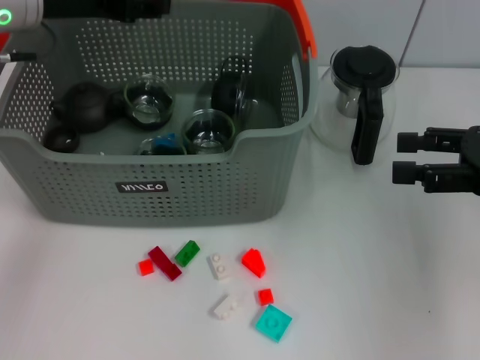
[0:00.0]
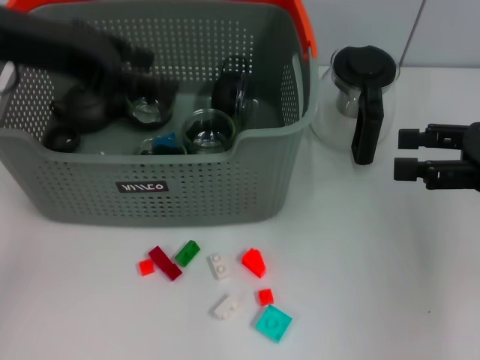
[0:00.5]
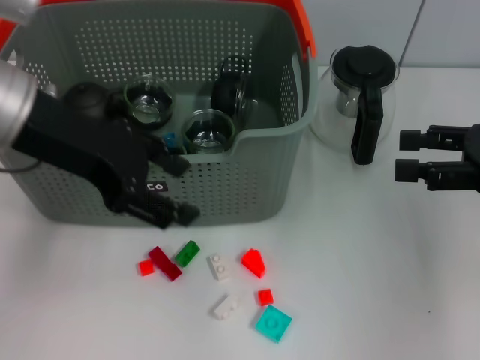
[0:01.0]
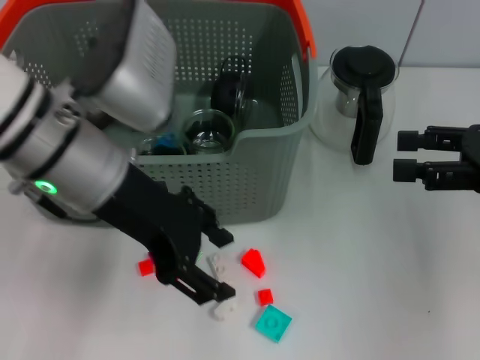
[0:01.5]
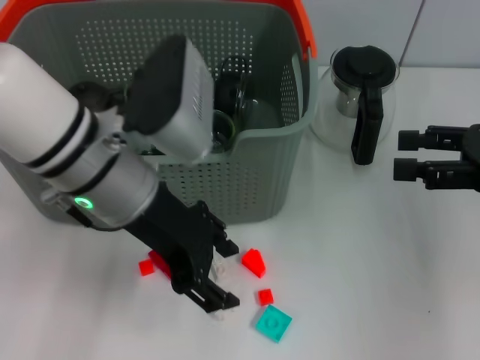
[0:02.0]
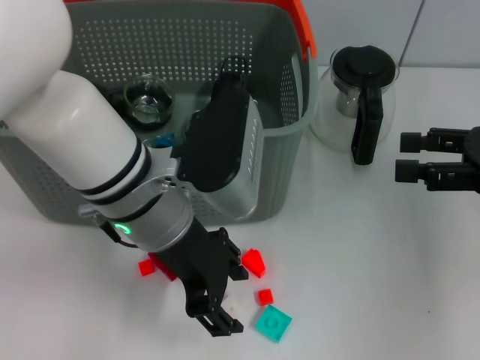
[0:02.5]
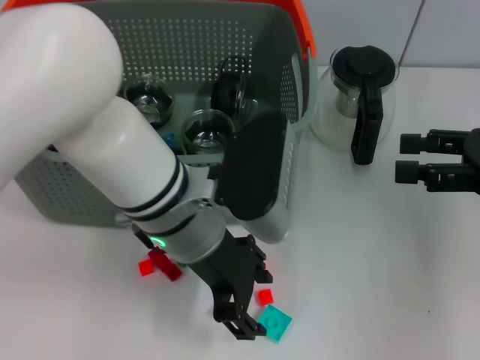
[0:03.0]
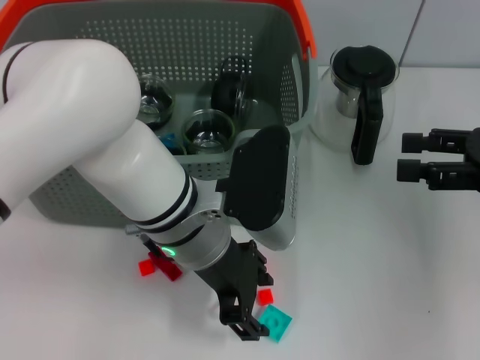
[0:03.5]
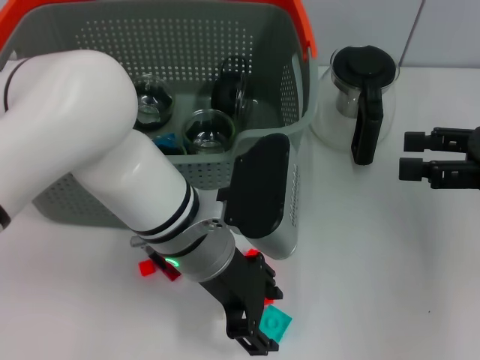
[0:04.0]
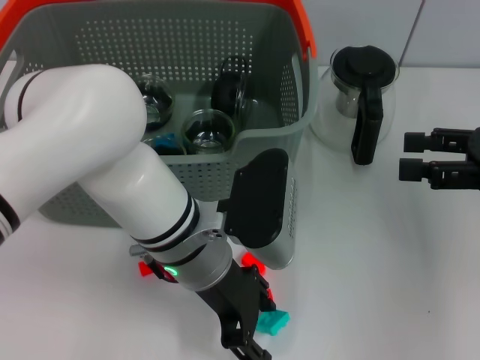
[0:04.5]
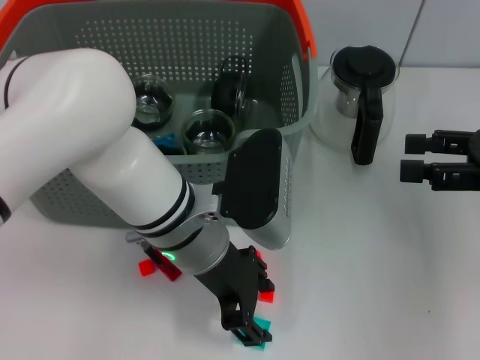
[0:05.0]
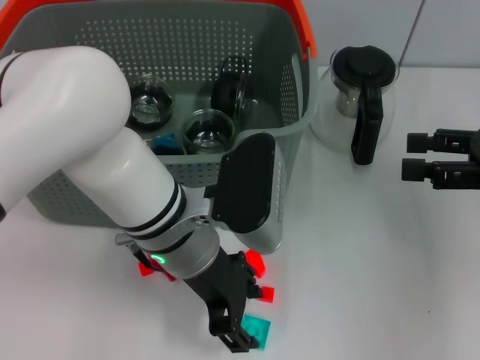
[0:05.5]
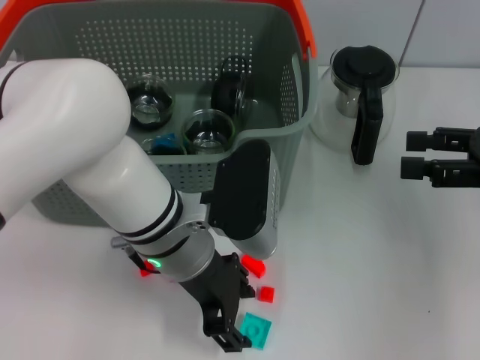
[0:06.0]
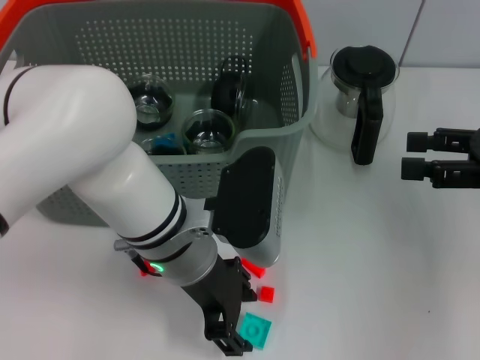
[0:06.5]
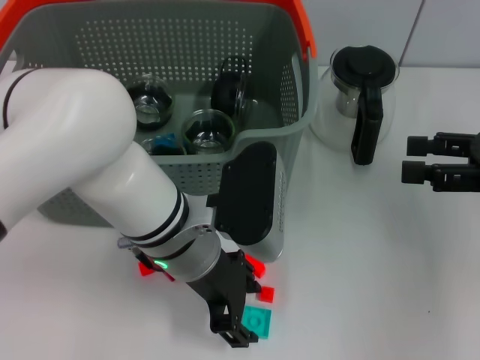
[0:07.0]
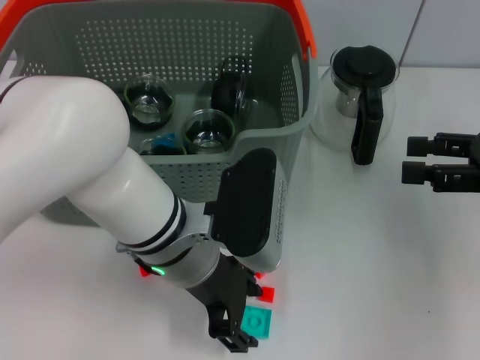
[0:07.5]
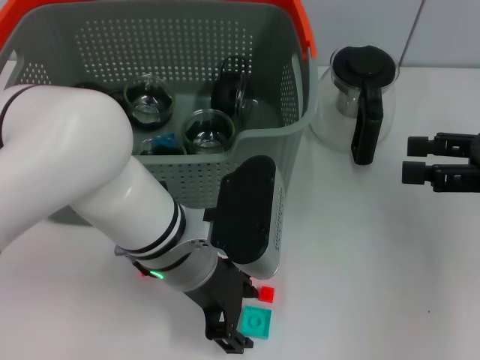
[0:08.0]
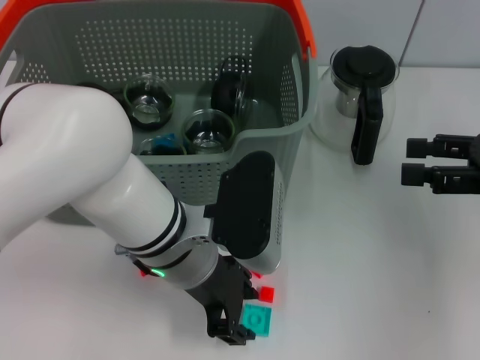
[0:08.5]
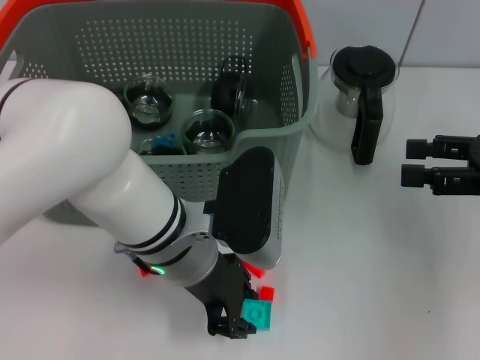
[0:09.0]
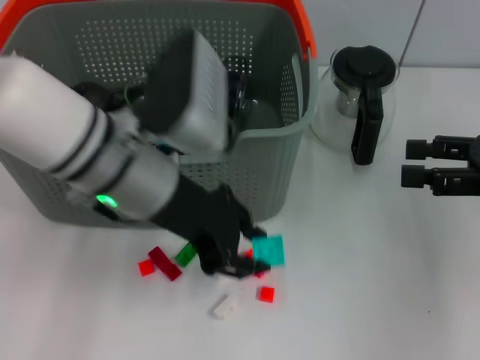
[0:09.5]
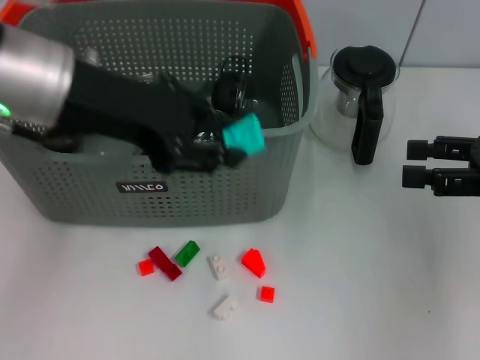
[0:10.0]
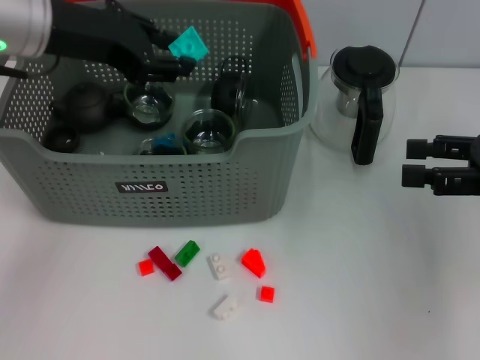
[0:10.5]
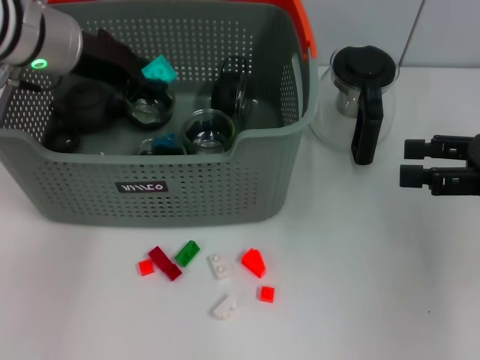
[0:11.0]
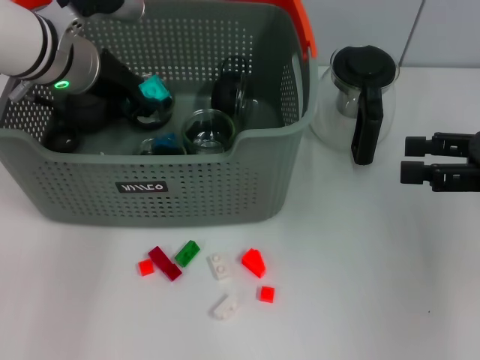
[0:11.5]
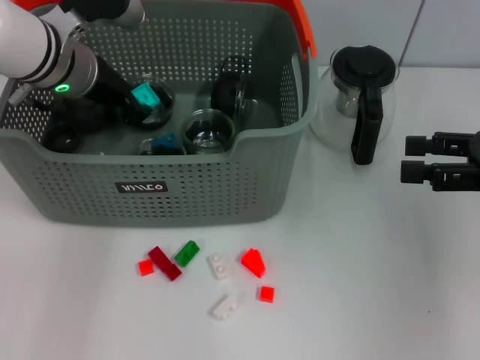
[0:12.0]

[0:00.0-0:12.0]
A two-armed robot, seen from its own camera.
Task of the whole recording: pick up the teacup on the table and place it into the storage bin, pick up the block on the table and place it into the storage bin.
Step, 0:00.0 to 0:08.5: Grasp the light blue block with left gripper.
0:00.0 to 0:02.0: The left gripper is displaced to the right and backward by approximately 15 cm.
0:02.0 to 0:04.0: The left gripper travels downward and to the right by approximately 10 cm.
0:04.0 to 0:06.0: The grippers make only small movements.
0:06.0 to 0:08.0: Both grippers stay put.
0:08.0 to 0:10.0: The left gripper goes approximately 20 cm upward and to the left, and closes up.
0:10.0 to 0:12.0: The left gripper heads forward and downward, covering roughly 15 cm.

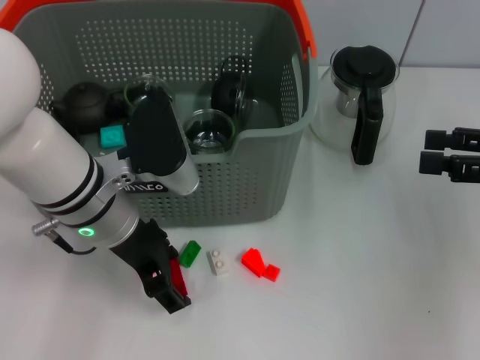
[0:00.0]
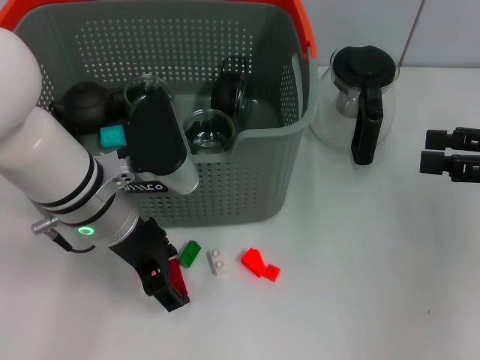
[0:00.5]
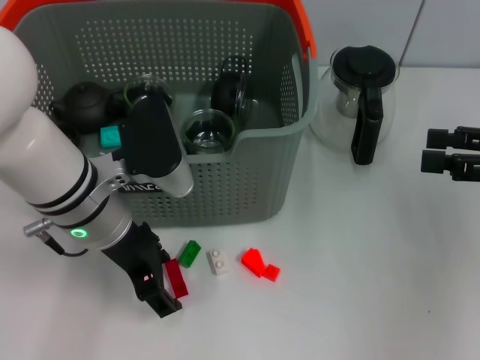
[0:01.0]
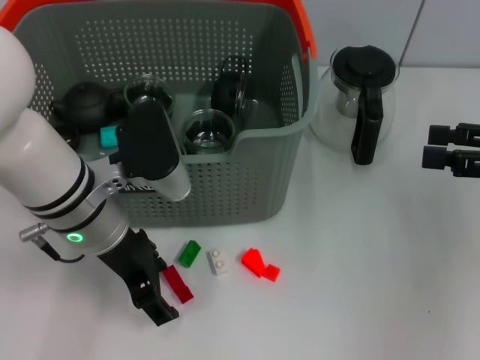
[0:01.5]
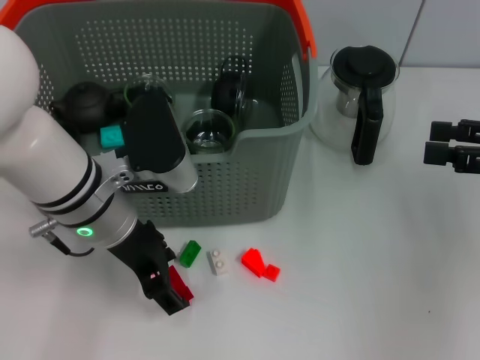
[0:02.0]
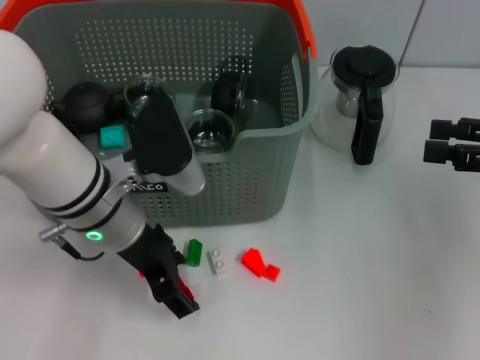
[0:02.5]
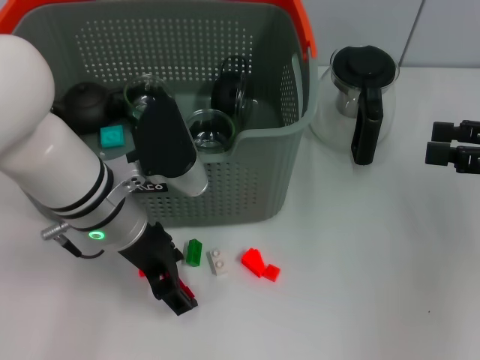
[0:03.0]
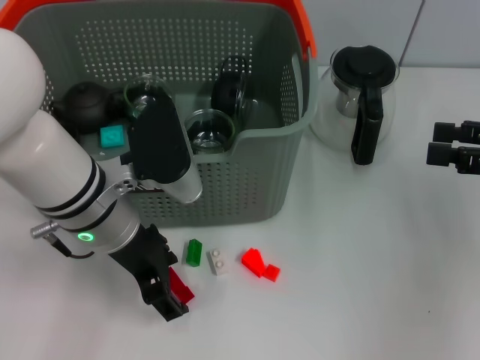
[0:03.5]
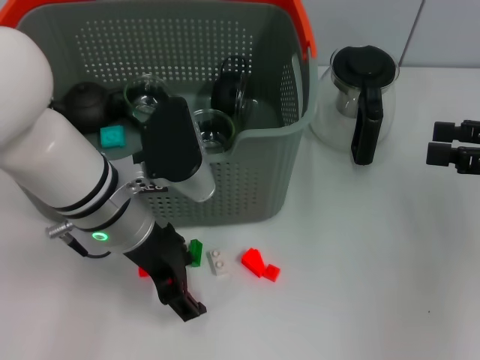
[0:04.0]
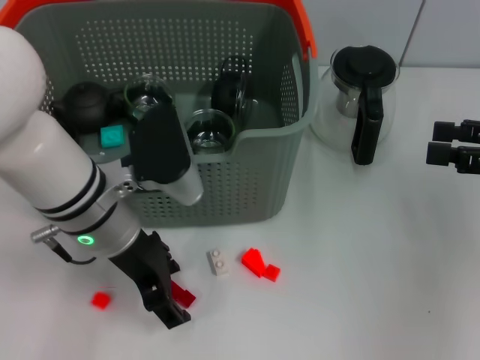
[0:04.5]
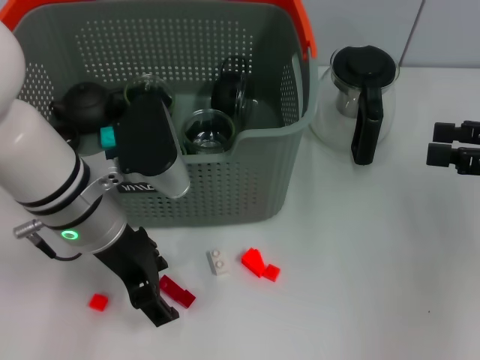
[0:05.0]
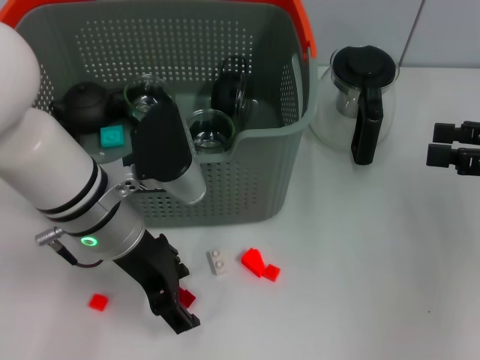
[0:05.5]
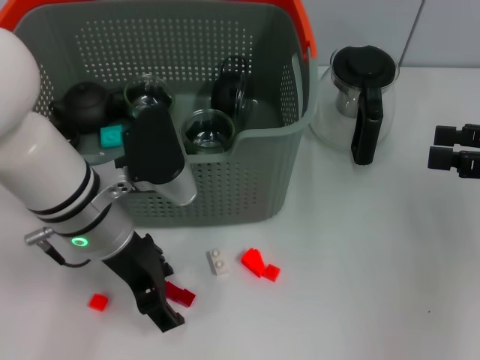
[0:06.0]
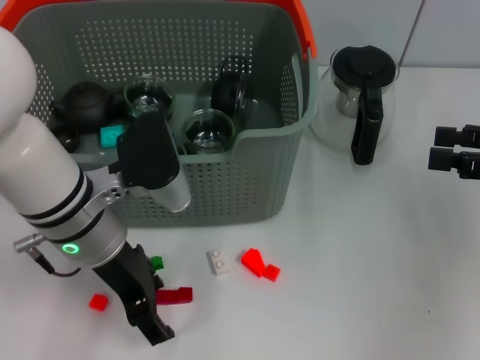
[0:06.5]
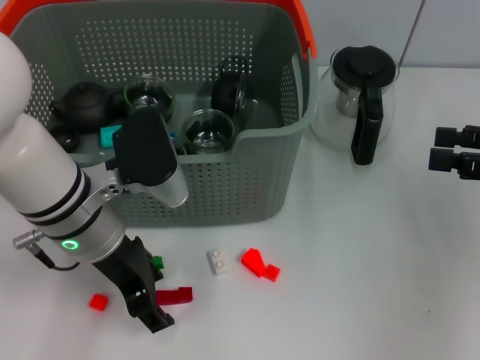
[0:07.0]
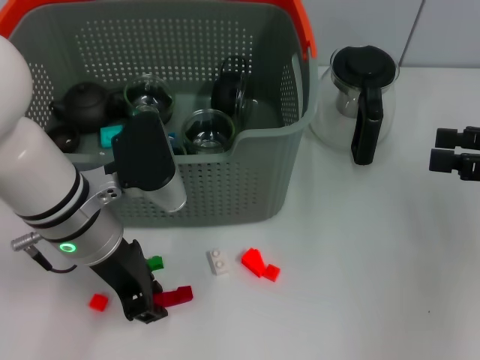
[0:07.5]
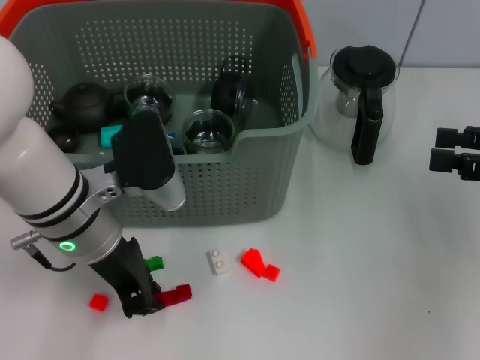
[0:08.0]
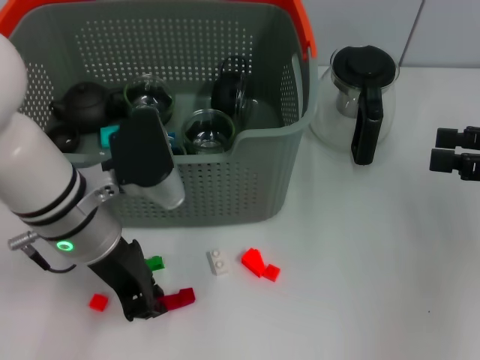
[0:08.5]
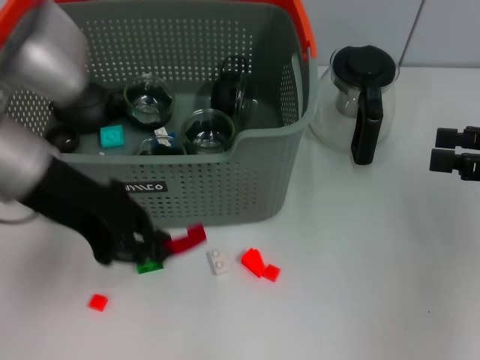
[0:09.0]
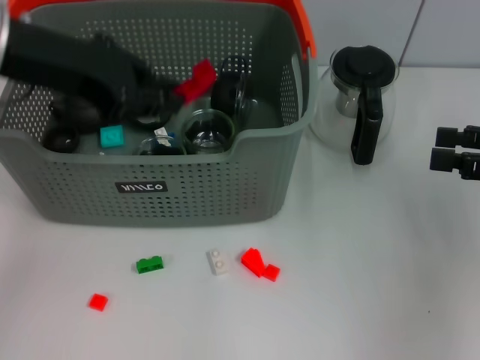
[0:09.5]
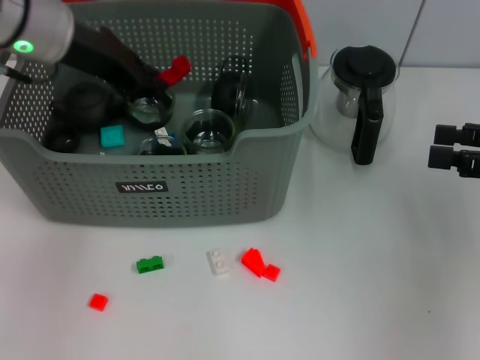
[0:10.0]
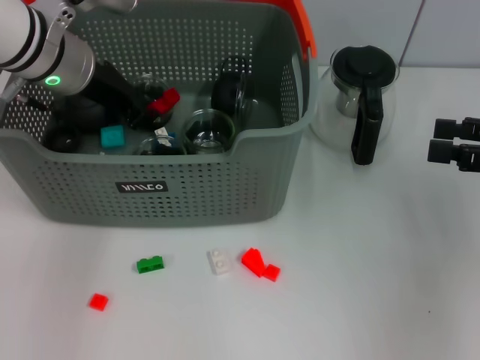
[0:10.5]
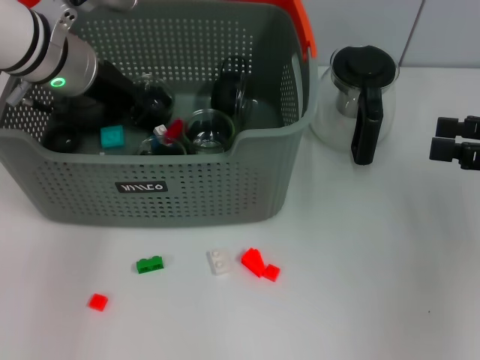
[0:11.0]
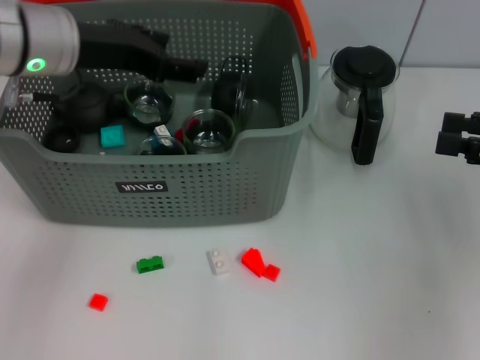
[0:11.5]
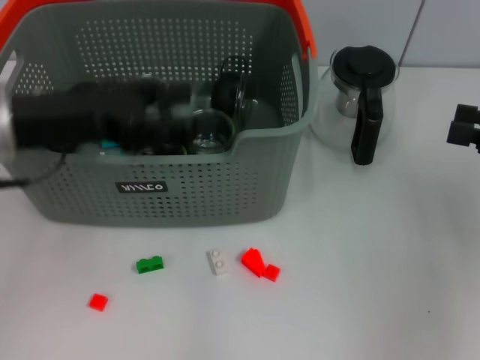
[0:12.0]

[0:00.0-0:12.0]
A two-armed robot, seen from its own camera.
Task of the whole recording: pick up the teacup on the table and place it into the storage bin, pick up the block on the table and place it into the storage bin.
Step, 0:00.0 to 0:08.0: Grasp the red block with left gripper.
Step, 0:08.5 to 0:11.5: Place the red block in the storage box with left gripper.
0:00.0 to 0:02.0: Both grippers stay about where they are.
0:02.0 to 0:06.0: The grippers stay close to where they were, moving slightly.
0:06.0 to 0:08.0: The left gripper closes.
0:08.0 to 0:10.0: The left gripper heads upward and forward, covering approximately 15 cm.
0:10.0 to 0:12.0: The left gripper goes roughly 10 cm backward, and opens its fingers.

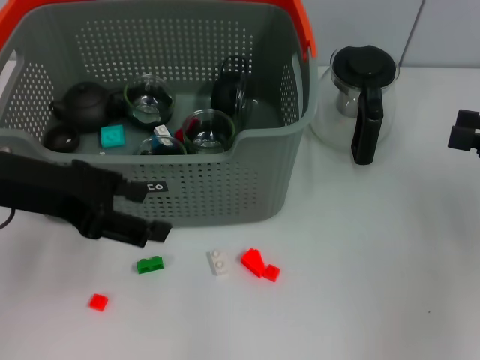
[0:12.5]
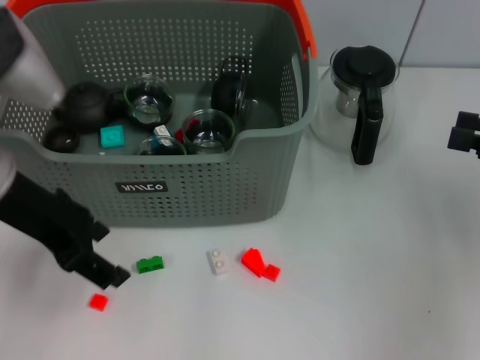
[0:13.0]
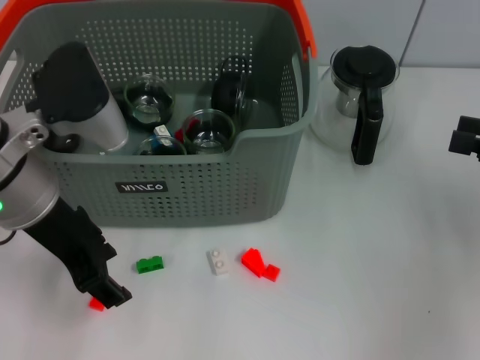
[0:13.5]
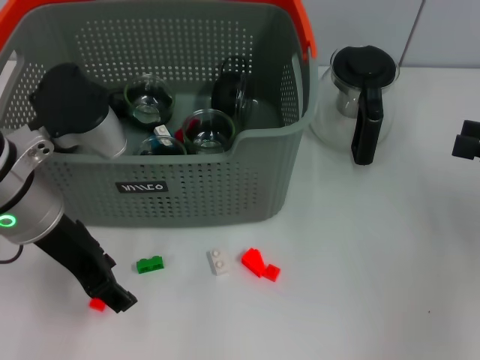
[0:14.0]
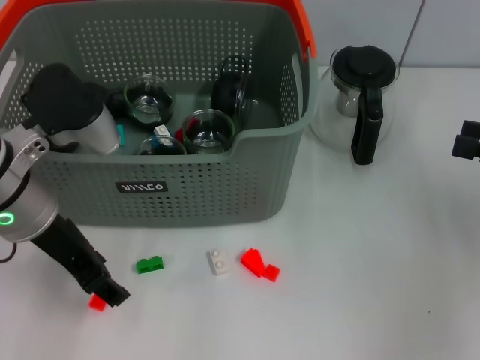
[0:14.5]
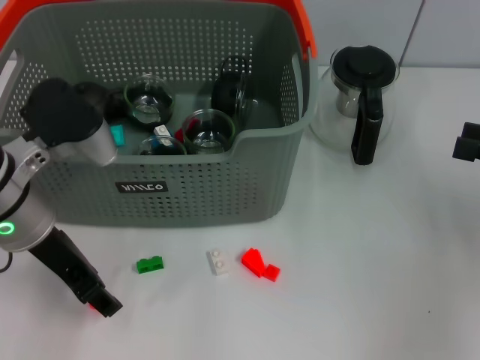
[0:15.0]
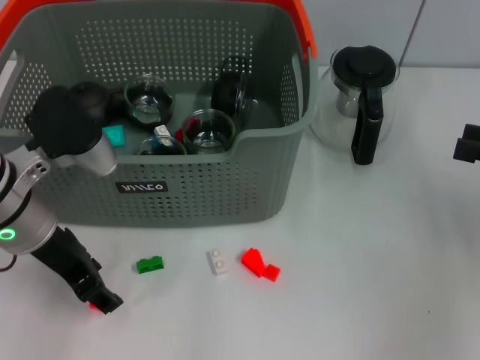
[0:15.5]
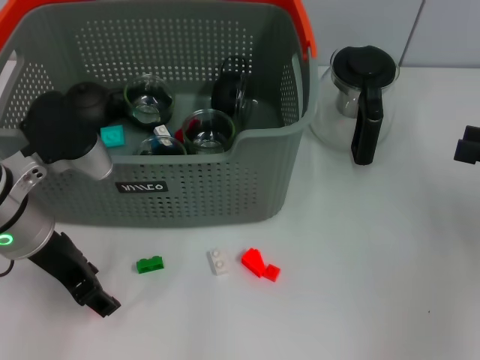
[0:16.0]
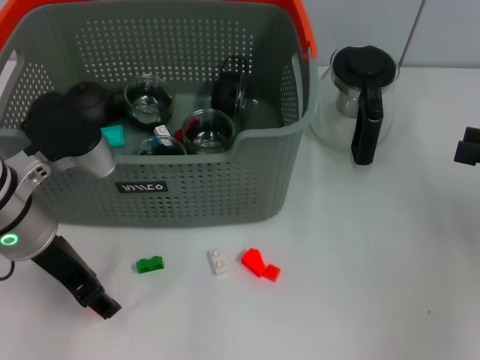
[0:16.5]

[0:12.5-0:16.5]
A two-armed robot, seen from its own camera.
Task of the whole recording: pick up the teacup on the table and place it into the storage bin, pick up the block on the table and place it into the storage bin.
0:12.5 to 0:14.5: The left gripper heads to the right, covering some 5 cm.
0:14.5 to 0:16.5: There are only small adjustments of the grippers.
